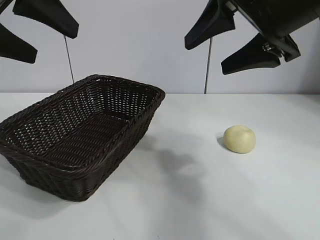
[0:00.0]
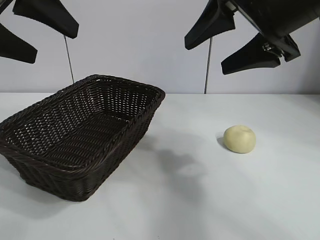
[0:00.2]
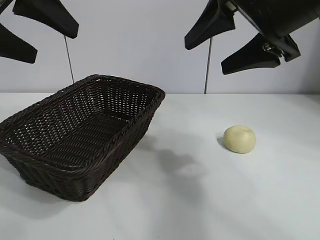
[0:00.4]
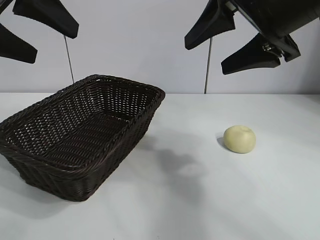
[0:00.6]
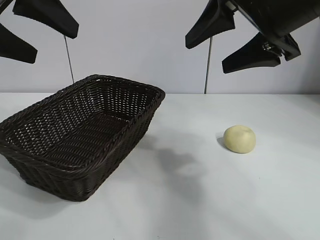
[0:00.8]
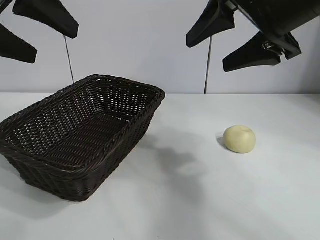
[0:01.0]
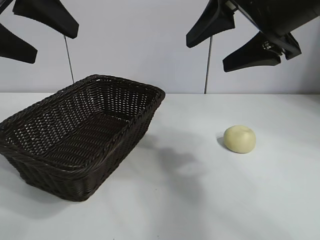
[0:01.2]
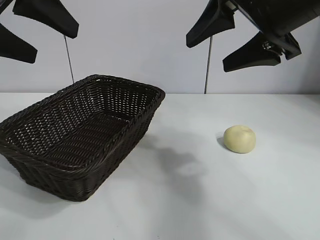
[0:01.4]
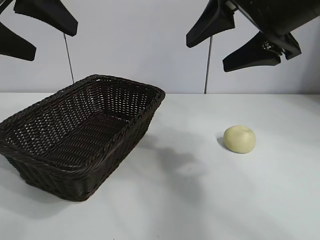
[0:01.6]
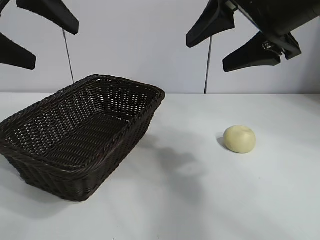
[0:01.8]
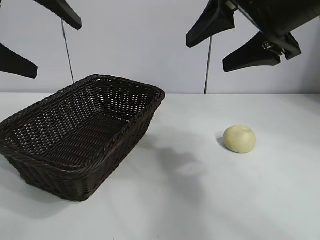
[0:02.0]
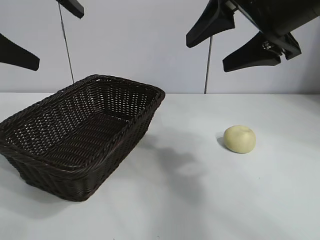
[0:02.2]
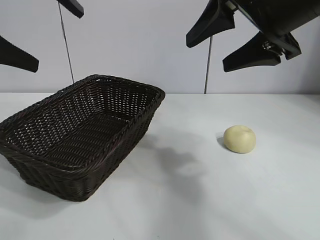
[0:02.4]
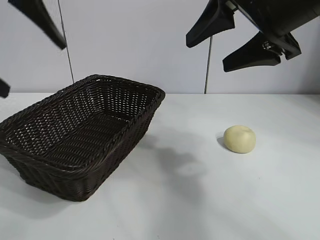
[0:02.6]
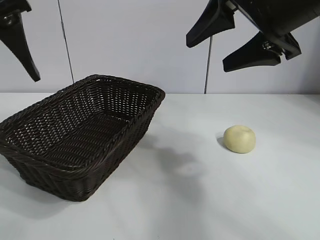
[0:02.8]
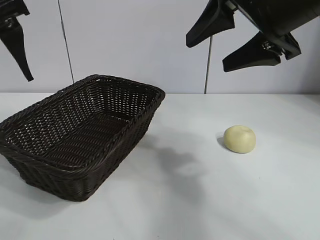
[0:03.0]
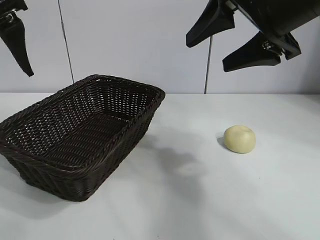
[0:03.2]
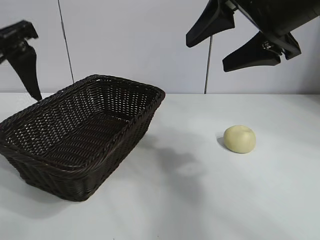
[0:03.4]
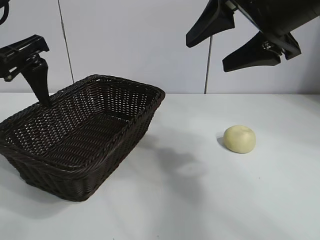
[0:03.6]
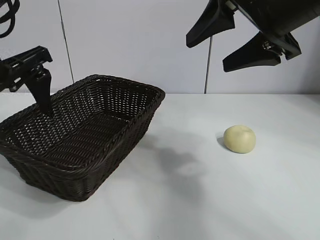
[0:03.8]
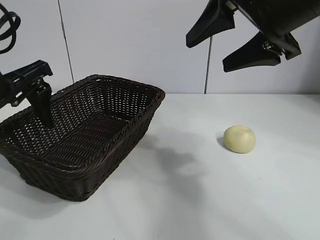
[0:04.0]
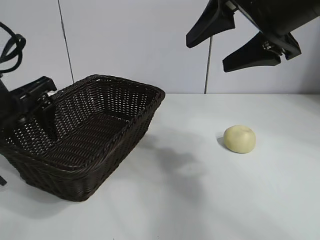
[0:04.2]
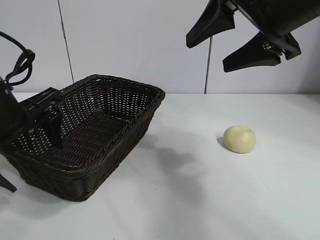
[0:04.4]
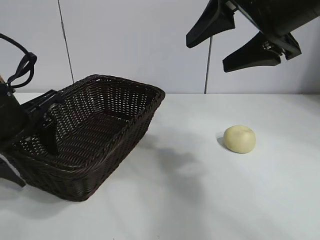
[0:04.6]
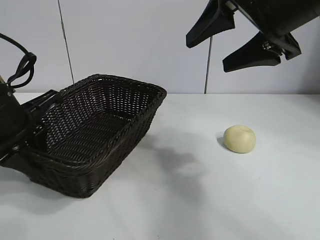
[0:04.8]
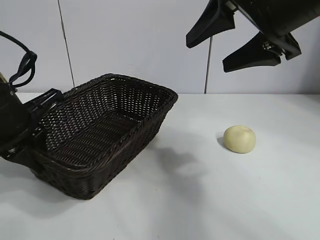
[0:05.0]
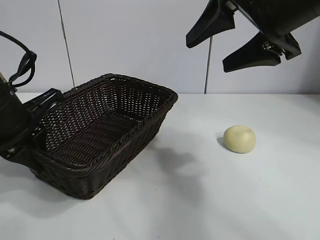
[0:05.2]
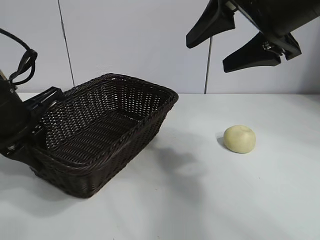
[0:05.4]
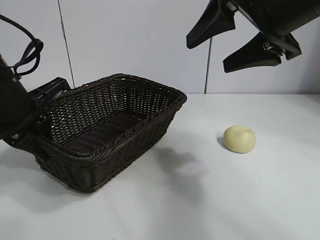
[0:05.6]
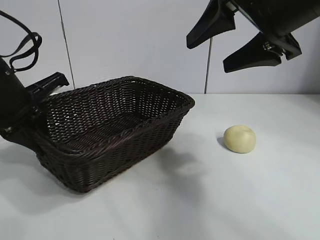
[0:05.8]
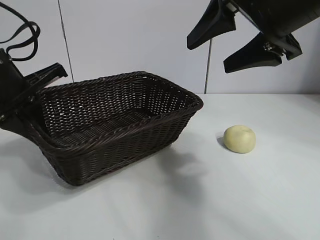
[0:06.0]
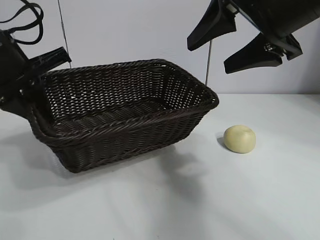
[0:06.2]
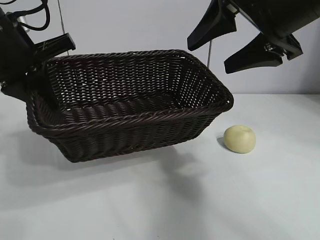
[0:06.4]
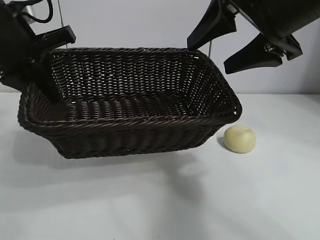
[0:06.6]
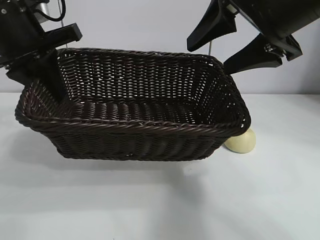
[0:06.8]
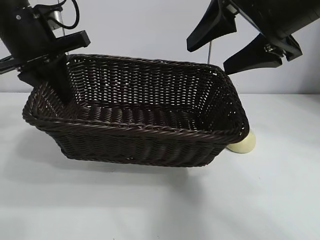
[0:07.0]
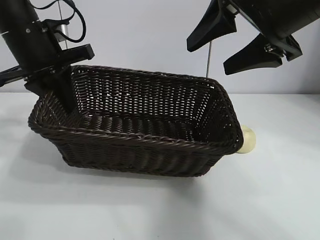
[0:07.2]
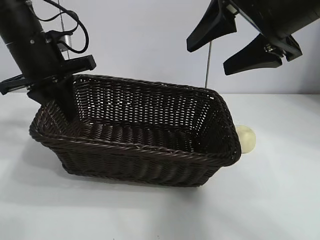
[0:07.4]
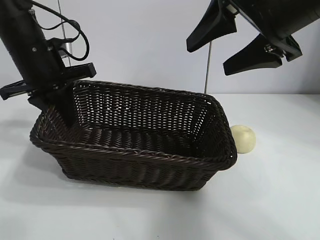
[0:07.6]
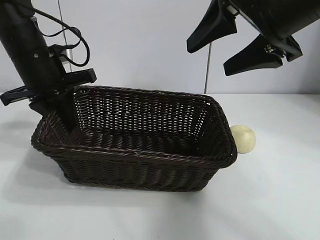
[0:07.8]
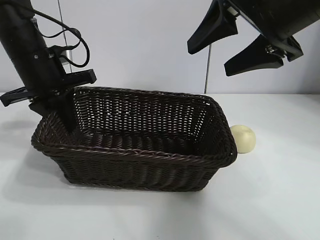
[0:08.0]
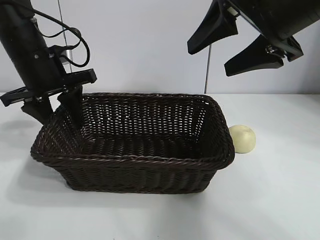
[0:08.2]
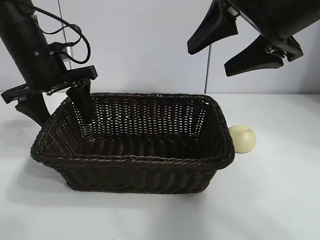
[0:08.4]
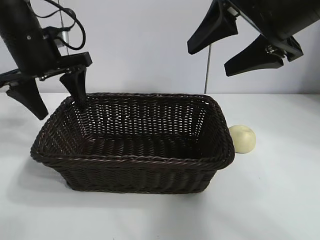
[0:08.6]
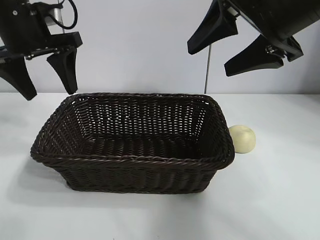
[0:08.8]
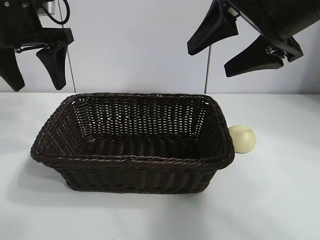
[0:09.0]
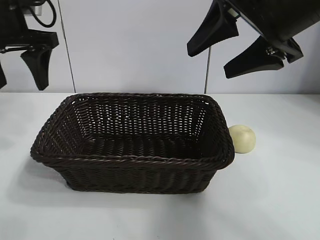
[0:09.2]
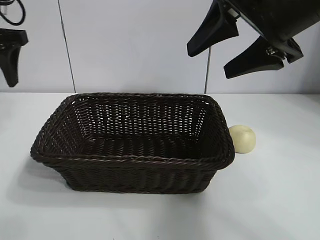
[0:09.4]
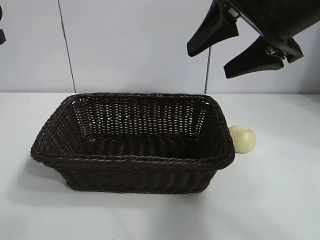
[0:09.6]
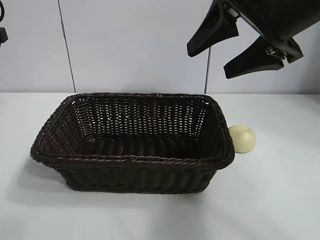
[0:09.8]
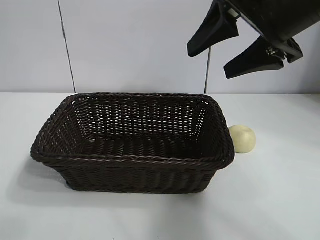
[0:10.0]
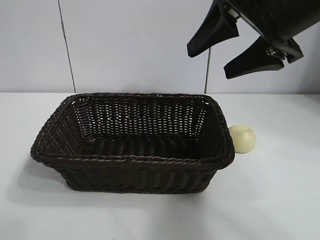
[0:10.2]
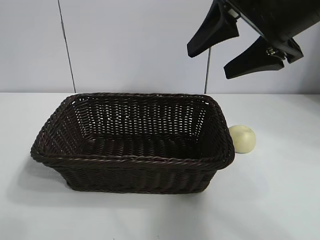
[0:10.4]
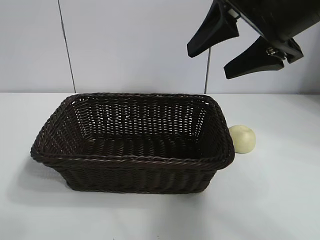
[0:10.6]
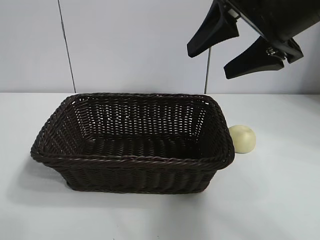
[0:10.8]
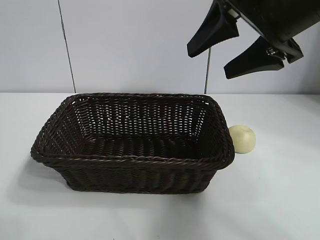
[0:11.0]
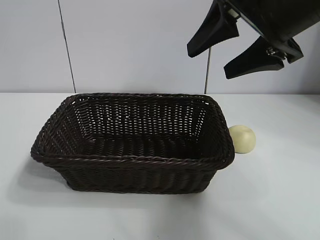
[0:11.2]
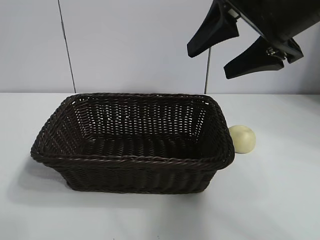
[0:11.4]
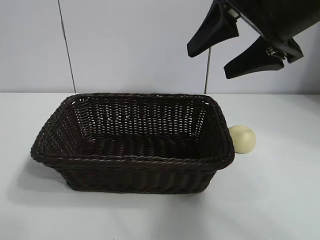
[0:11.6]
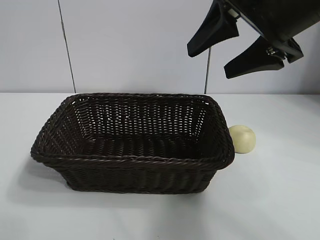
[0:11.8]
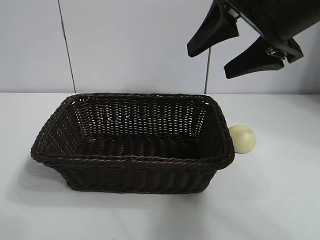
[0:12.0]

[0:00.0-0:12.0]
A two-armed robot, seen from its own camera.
Task of the whole recording: pick up the egg yolk pastry and put it into the basket.
Step, 0:00.6 to 0:04.8: Grasp the basket with left gripper.
Step, 0:05.0 to 0:08.4: Place the basket in the center of view with left gripper.

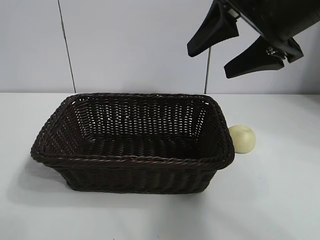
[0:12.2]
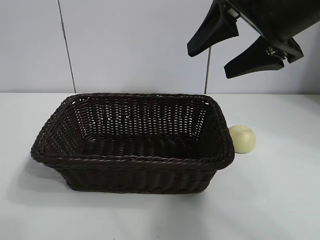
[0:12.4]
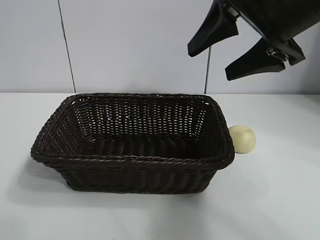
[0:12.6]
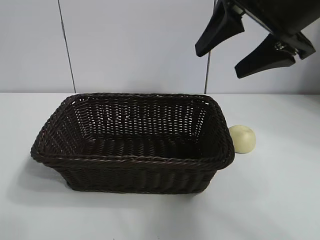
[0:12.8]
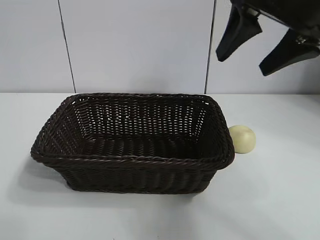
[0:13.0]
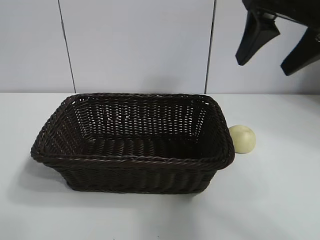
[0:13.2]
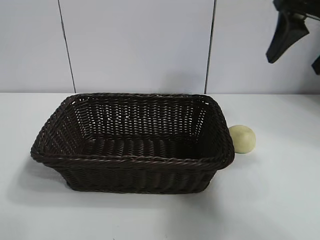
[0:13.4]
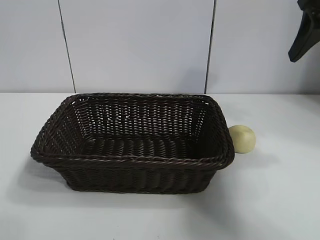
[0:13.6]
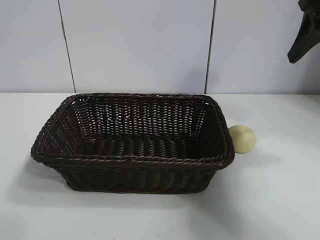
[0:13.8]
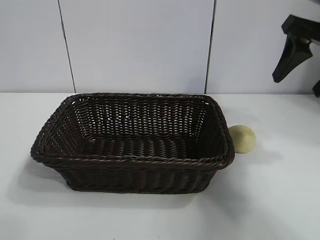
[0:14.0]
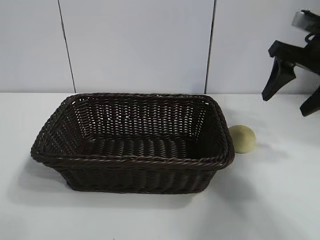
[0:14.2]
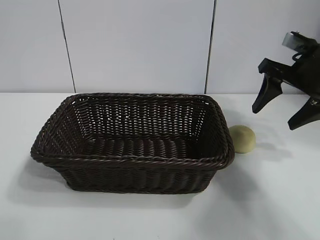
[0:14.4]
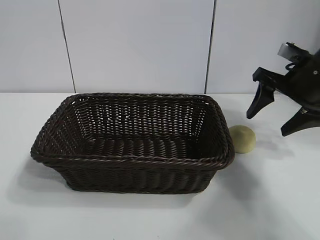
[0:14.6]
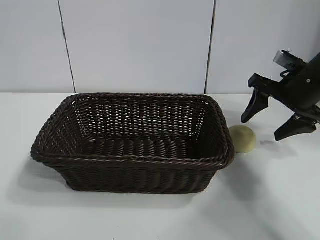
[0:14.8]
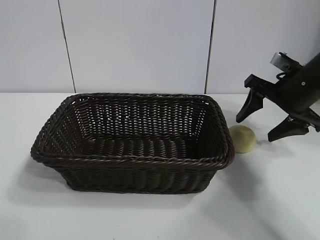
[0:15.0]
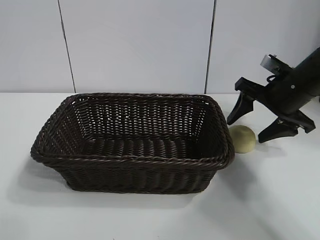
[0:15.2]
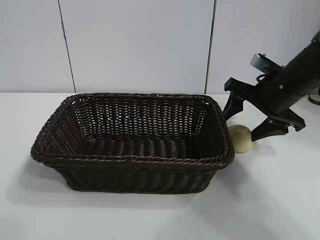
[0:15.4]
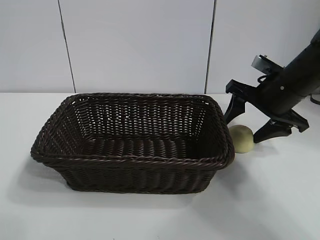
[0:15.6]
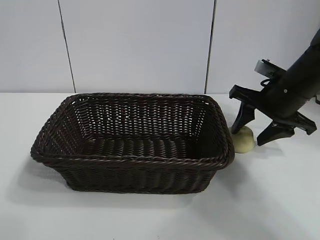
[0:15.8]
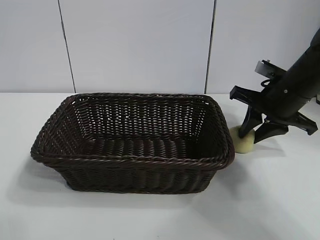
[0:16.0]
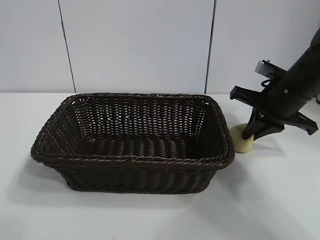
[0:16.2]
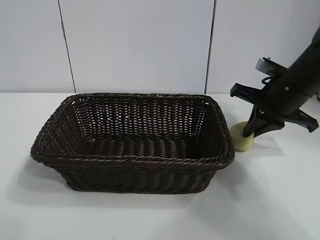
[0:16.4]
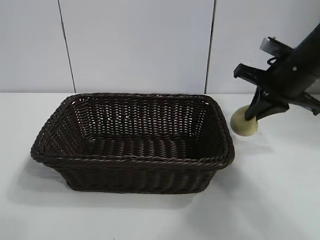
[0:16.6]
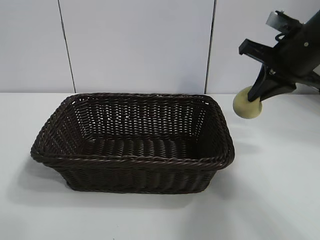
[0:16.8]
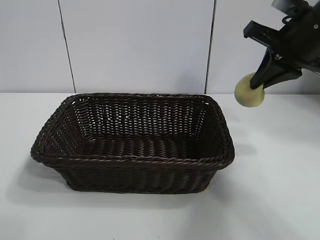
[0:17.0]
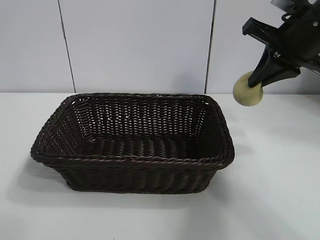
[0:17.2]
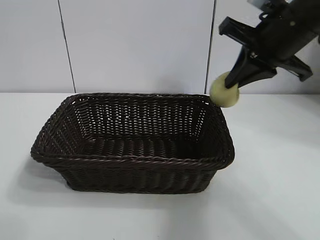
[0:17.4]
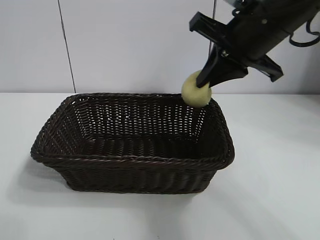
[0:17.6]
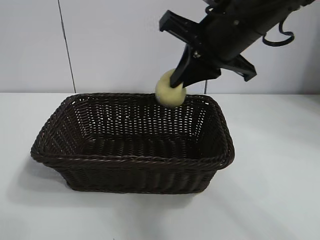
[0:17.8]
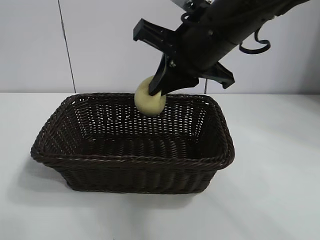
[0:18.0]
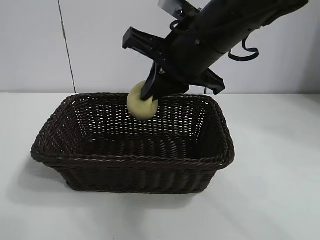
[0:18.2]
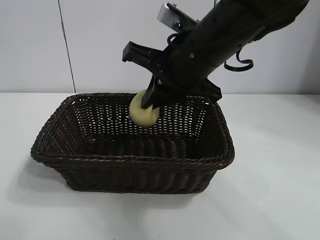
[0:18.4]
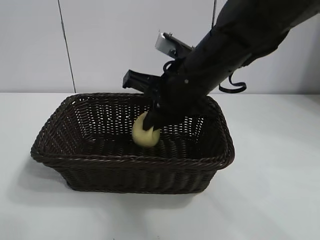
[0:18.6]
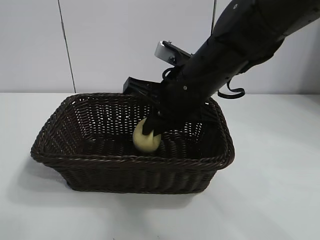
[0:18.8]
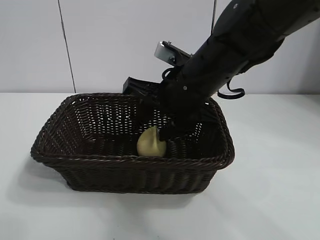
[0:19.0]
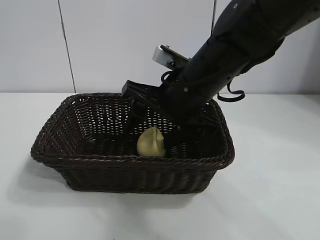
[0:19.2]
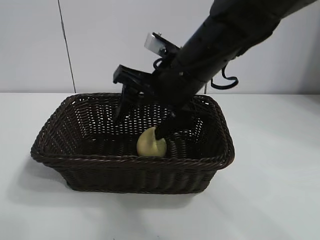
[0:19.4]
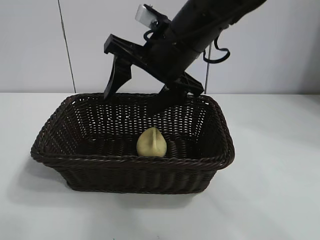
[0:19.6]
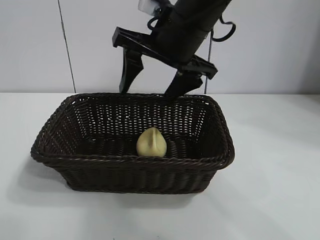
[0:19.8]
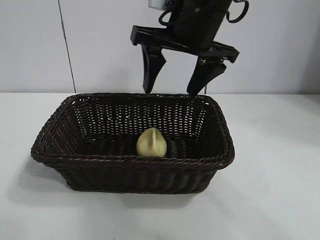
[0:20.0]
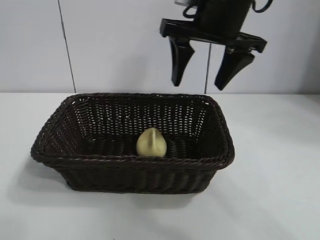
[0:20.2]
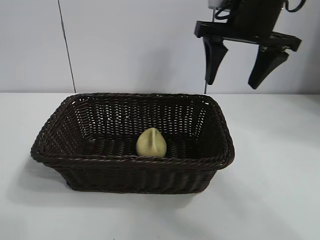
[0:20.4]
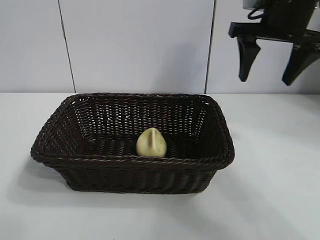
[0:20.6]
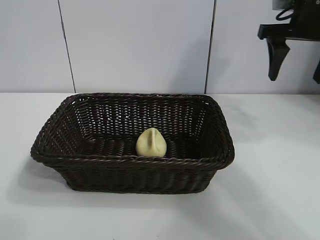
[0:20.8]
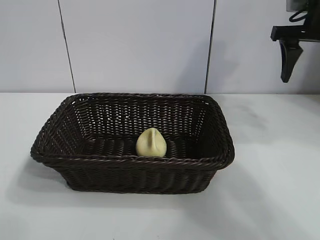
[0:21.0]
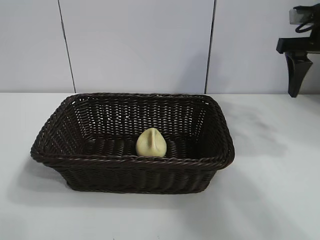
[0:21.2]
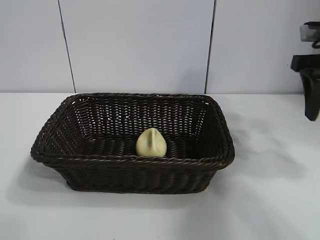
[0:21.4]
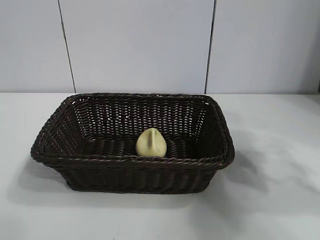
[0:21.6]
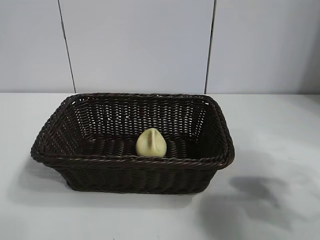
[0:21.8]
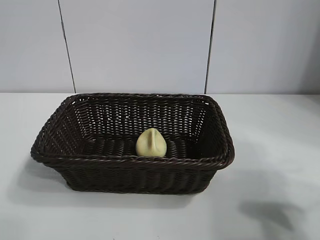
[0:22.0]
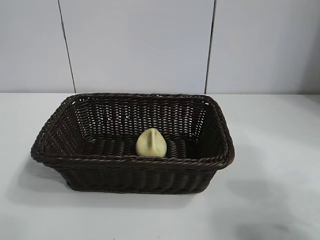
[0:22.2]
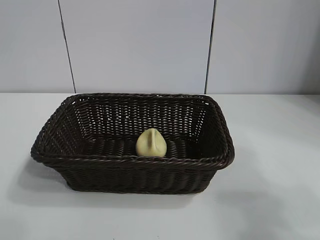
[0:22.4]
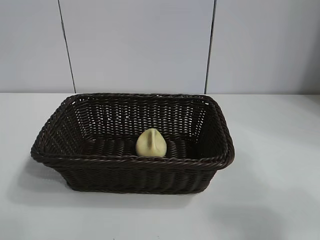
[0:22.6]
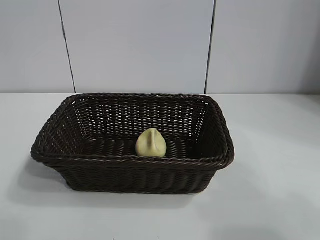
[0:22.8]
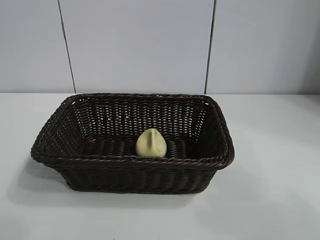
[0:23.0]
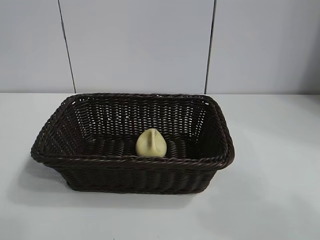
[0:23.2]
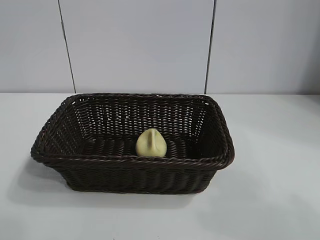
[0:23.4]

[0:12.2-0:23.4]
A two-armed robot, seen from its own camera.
Task of the whole recording: pick up the egg yolk pastry and put it into the basket.
Step, 0:12.2 to 0:16.2: Grasp egg yolk pastry with right gripper.
Step, 0:16.4 to 0:19.2: Place the egg yolk pastry in the basket with right gripper.
